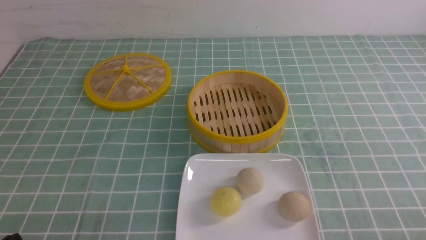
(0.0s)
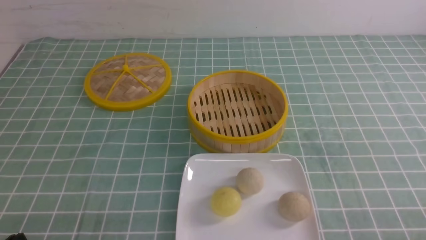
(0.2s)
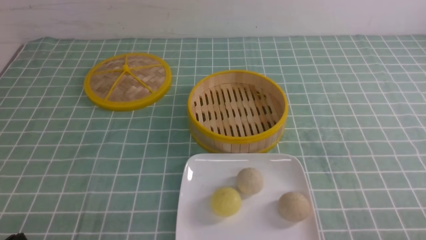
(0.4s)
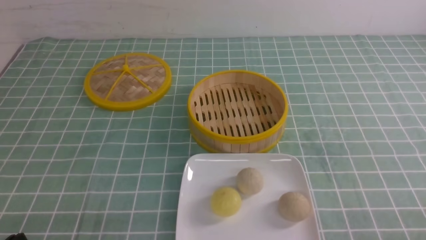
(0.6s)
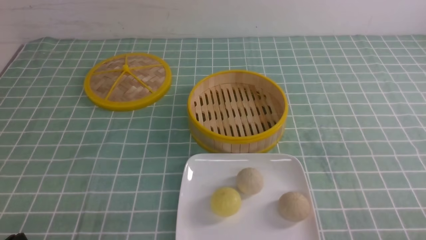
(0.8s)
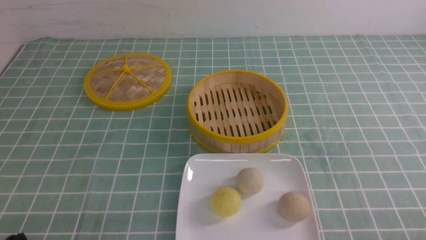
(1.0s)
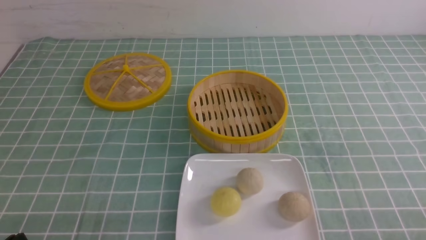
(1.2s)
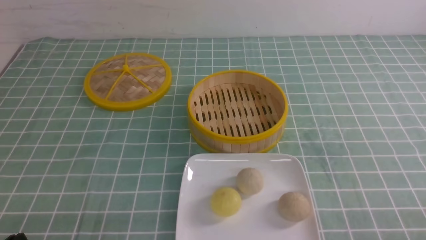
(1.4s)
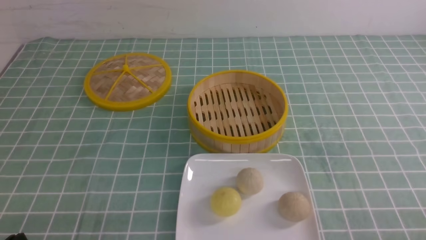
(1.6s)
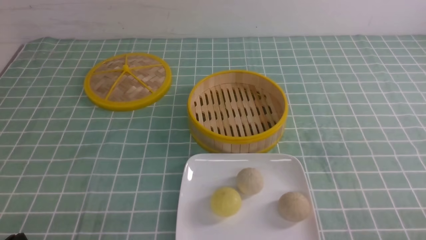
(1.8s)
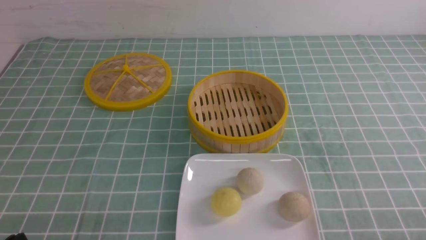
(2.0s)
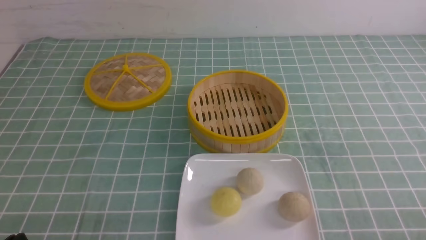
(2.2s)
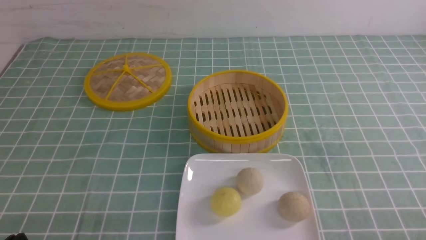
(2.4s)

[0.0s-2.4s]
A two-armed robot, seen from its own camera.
0.0s to 2.4s: Both grippers stay put.
